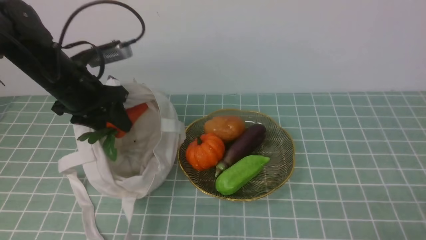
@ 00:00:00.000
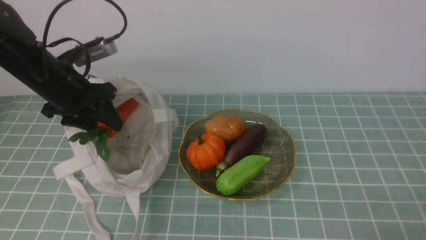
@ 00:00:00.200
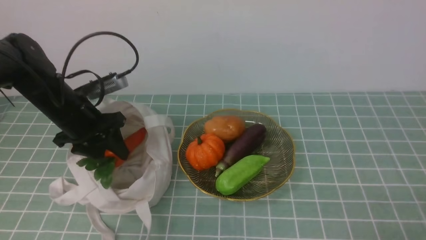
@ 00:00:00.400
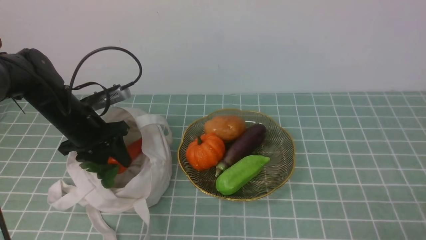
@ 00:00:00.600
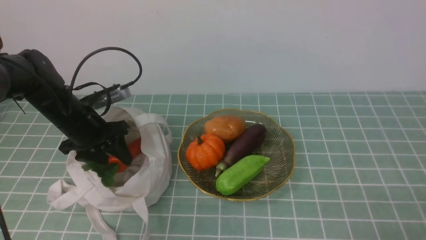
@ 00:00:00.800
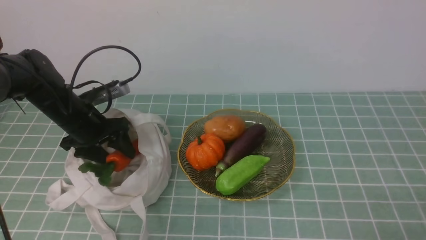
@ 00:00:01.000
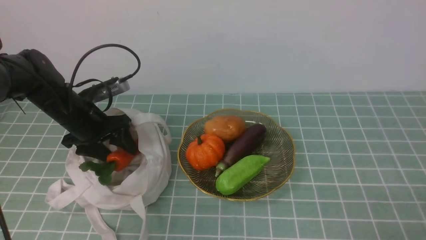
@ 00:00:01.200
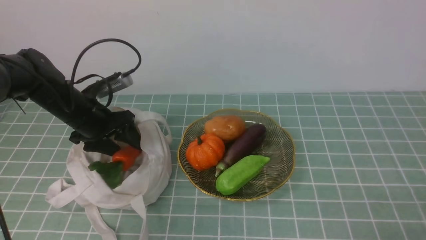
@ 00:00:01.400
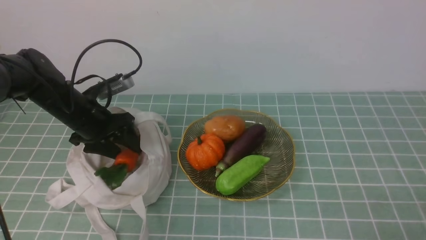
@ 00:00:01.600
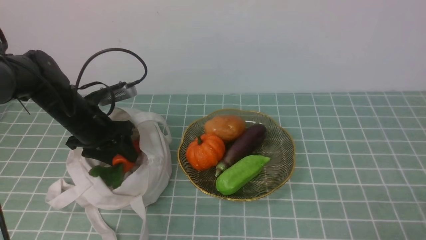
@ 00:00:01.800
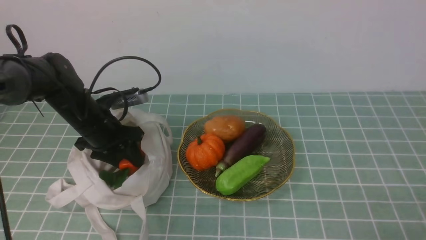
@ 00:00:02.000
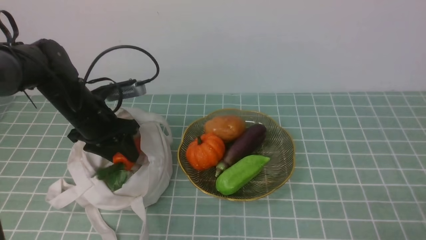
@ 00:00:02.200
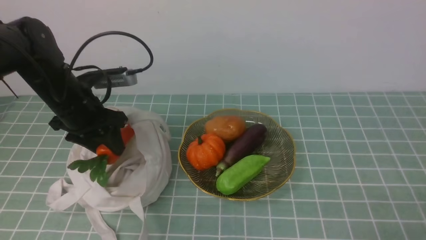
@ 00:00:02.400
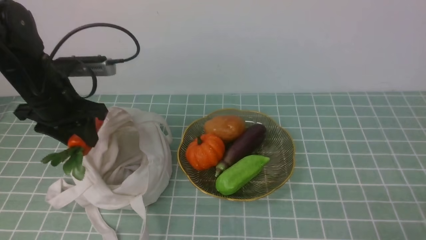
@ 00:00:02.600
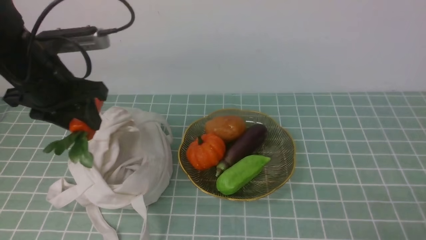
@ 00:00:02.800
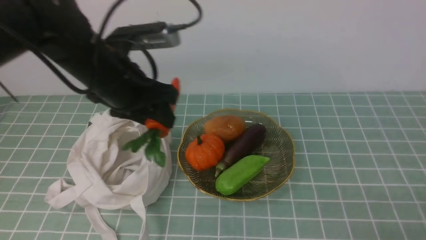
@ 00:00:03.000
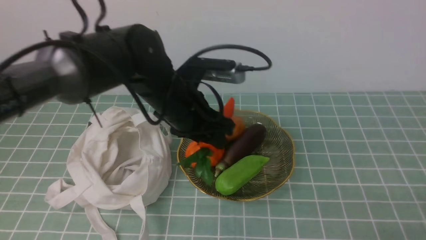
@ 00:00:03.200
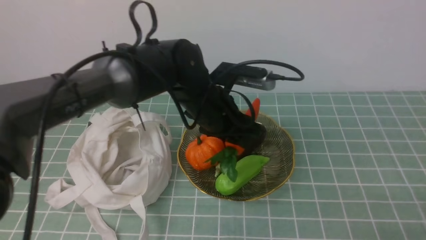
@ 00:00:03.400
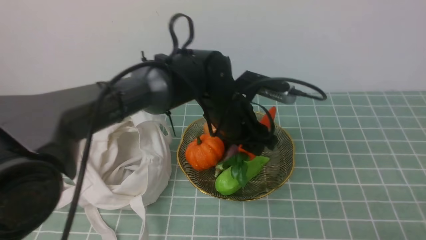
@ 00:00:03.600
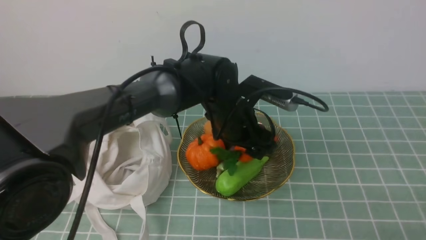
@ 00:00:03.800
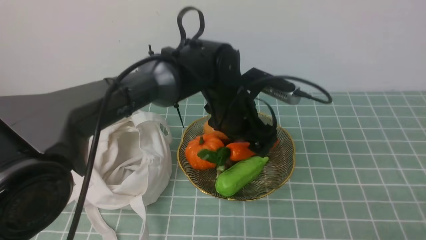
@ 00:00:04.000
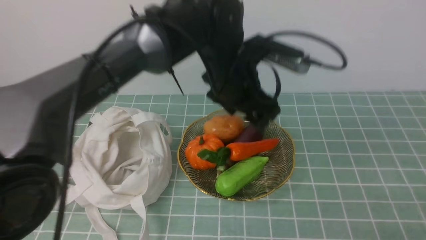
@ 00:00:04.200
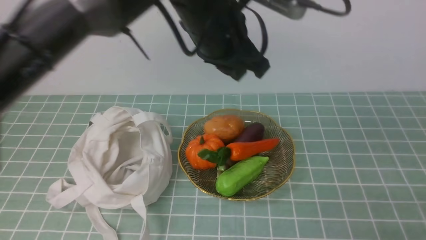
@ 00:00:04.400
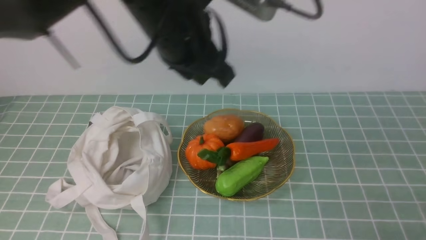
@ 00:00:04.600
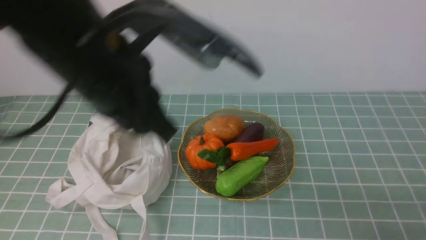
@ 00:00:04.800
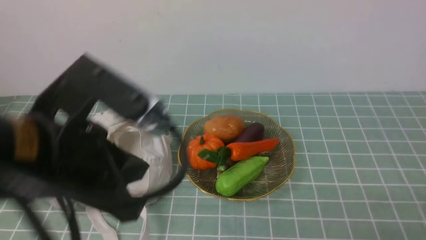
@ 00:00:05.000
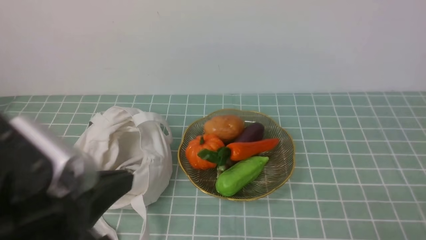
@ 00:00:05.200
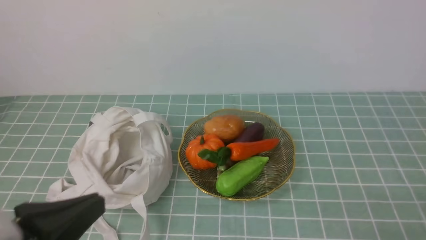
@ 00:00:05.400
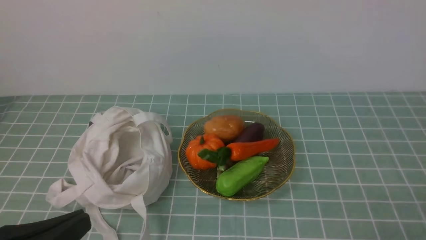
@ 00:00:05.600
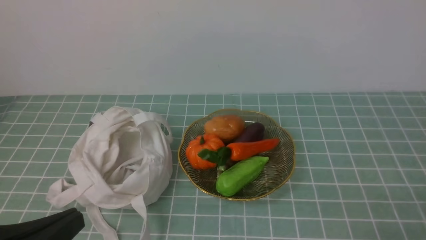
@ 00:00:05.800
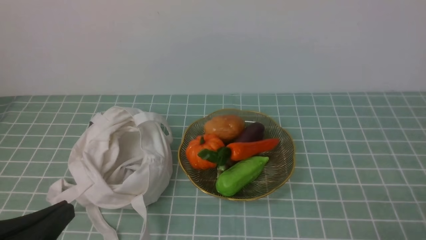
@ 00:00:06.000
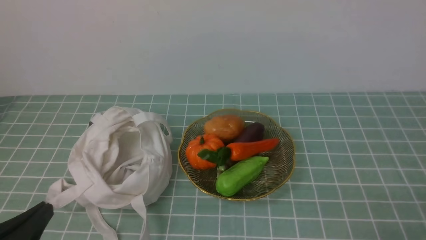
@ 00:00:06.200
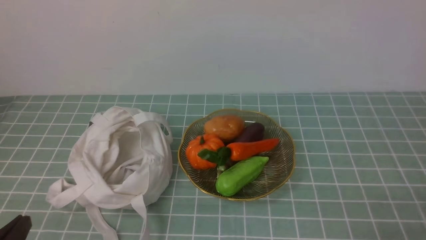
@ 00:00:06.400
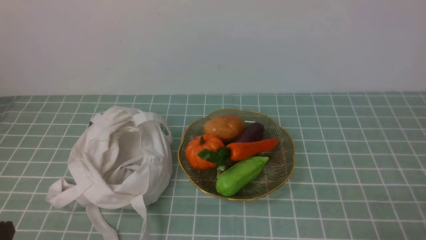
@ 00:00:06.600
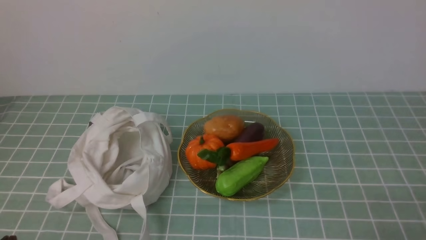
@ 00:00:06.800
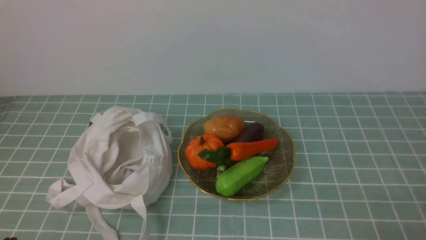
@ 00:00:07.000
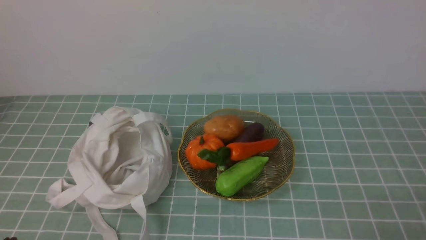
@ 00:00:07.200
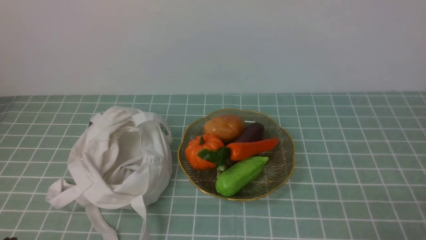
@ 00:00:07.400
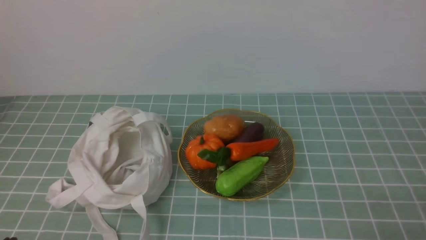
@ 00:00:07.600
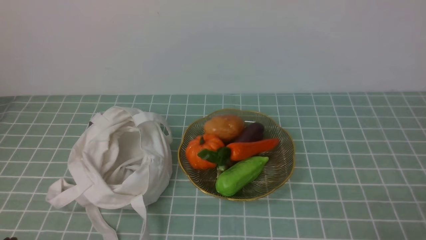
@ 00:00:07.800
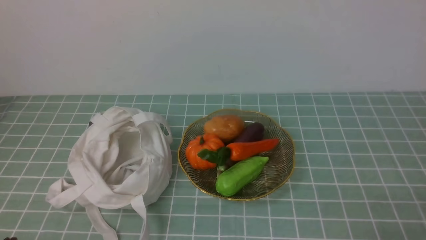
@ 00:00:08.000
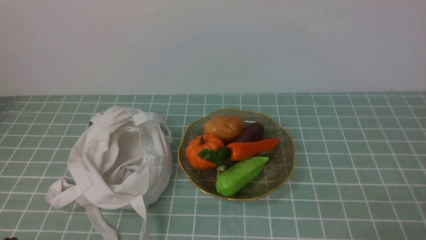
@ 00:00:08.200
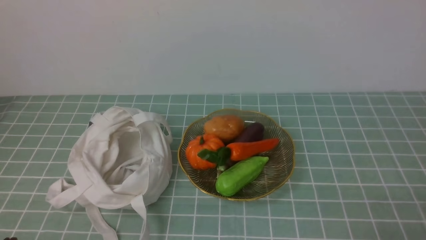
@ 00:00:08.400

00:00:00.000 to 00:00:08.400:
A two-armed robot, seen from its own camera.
Task of the whole recording: take vegetables from cloth bag on blue coffee tablecloth place on plate.
Step, 00:00:00.000 to 00:00:03.800: Place the radish on the plate with left gripper.
00:00:00.000 to 00:00:01.400: The left gripper travels downward by some 5 cm, and opens up.
00:00:01.400 to 00:00:02.800: The left gripper moves upward and backward, about 15 cm.
00:00:02.800 to 00:00:04.200: The left gripper shifts about 25 cm to the right, and opens.
00:00:04.200 to 00:00:05.600: The left gripper heads backward and to the left, covering some 35 cm, and closes up.
00:00:05.600 to 00:00:07.000: The left gripper travels downward and to the left by some 10 cm.
00:00:07.000 to 00:00:08.400: Both grippers stay about where they are.

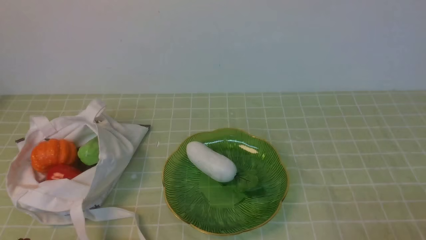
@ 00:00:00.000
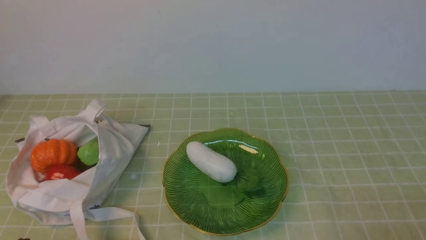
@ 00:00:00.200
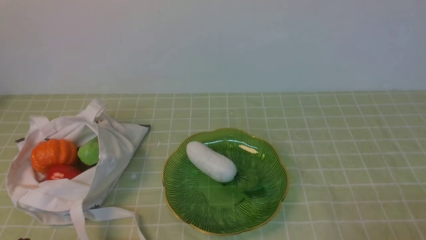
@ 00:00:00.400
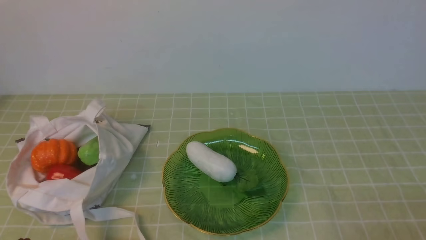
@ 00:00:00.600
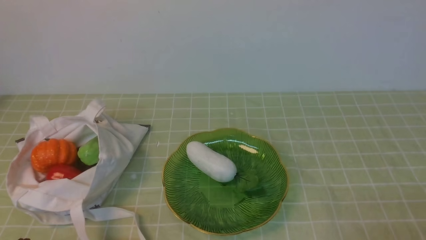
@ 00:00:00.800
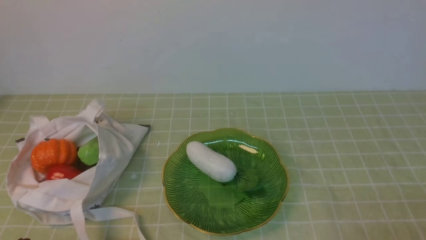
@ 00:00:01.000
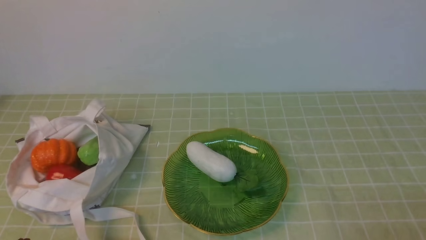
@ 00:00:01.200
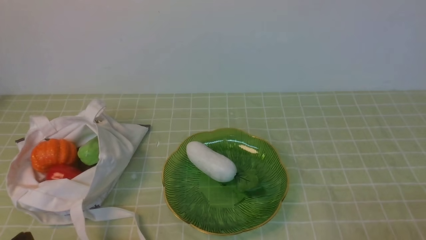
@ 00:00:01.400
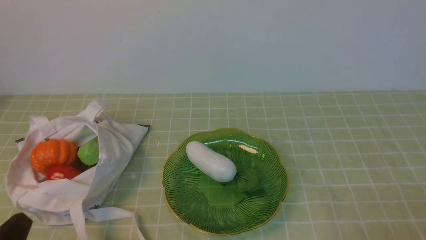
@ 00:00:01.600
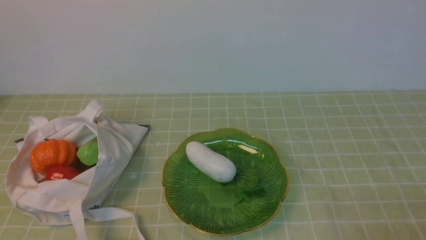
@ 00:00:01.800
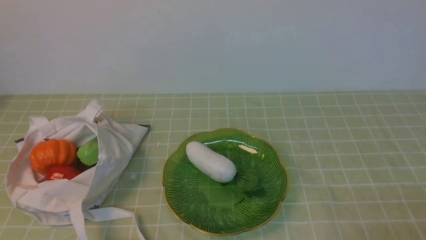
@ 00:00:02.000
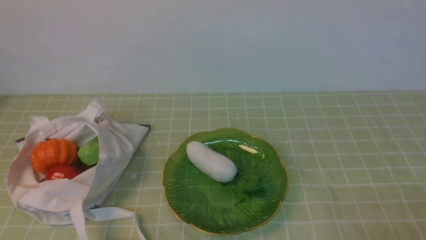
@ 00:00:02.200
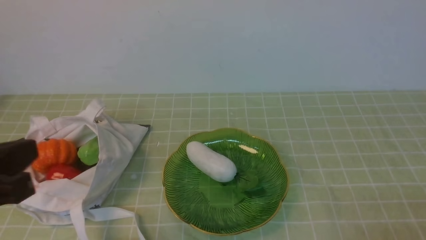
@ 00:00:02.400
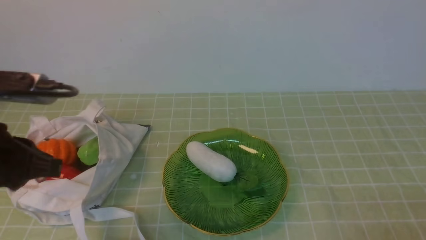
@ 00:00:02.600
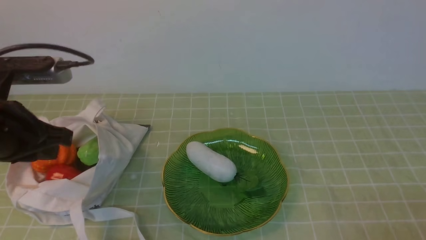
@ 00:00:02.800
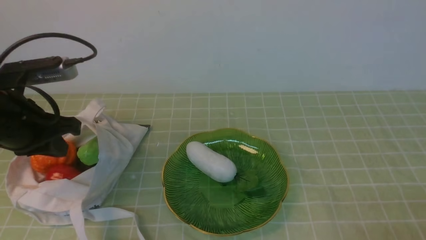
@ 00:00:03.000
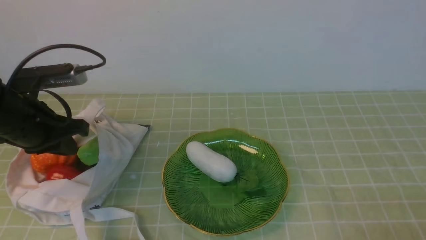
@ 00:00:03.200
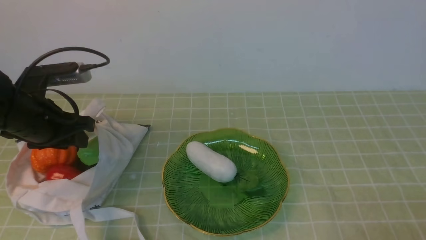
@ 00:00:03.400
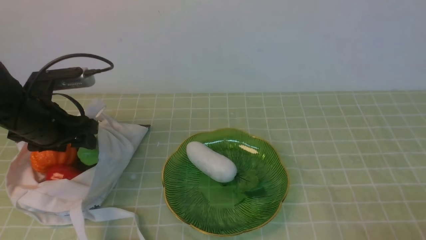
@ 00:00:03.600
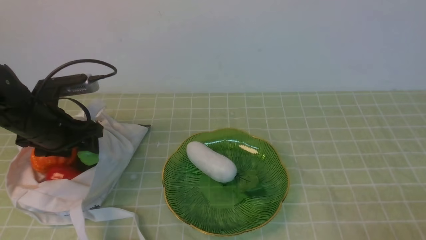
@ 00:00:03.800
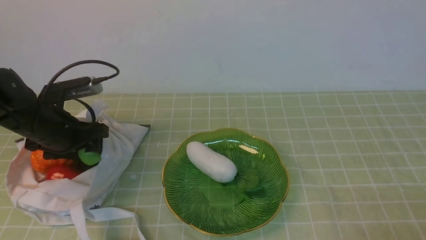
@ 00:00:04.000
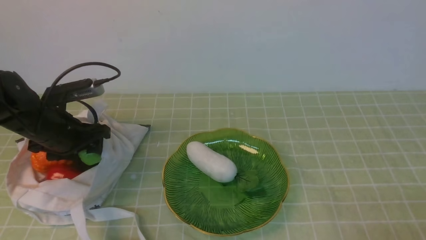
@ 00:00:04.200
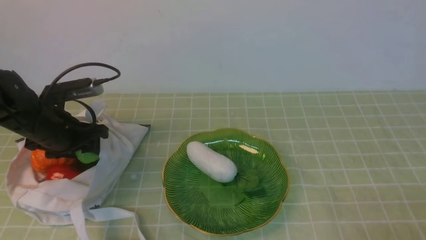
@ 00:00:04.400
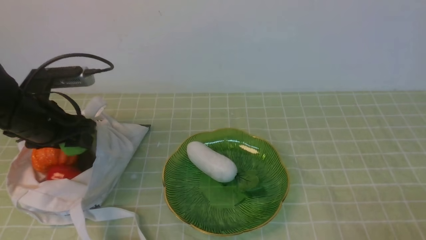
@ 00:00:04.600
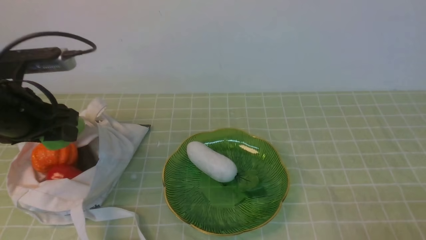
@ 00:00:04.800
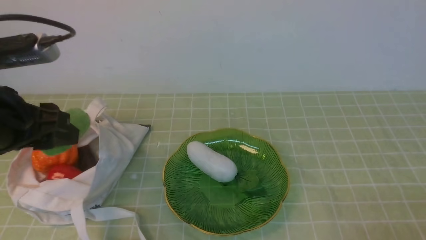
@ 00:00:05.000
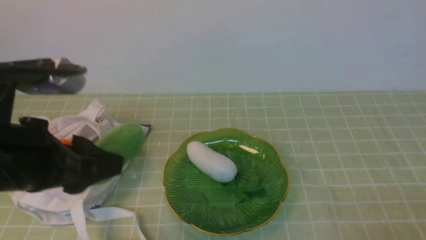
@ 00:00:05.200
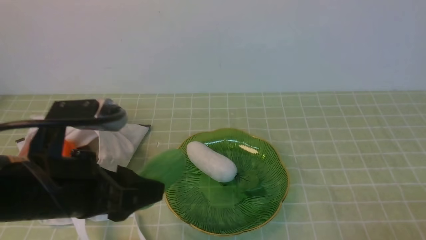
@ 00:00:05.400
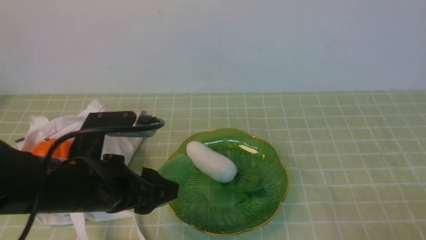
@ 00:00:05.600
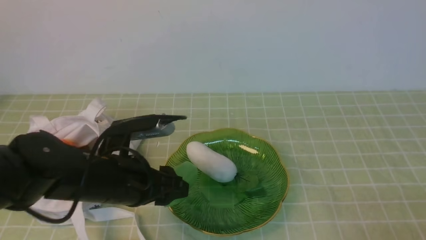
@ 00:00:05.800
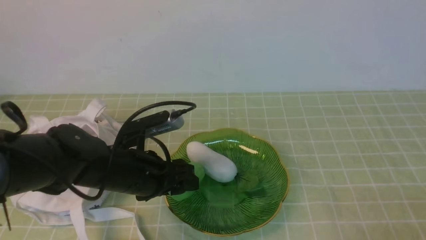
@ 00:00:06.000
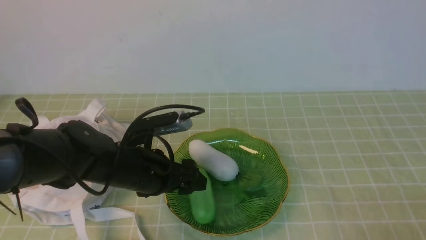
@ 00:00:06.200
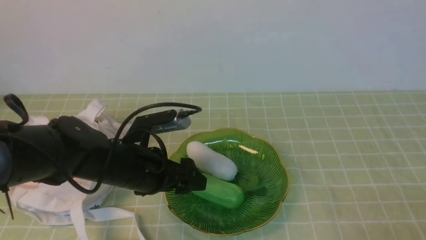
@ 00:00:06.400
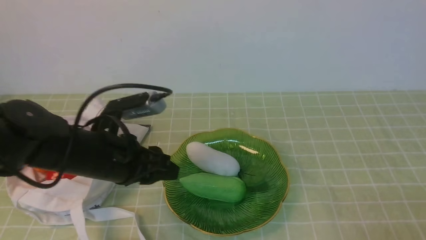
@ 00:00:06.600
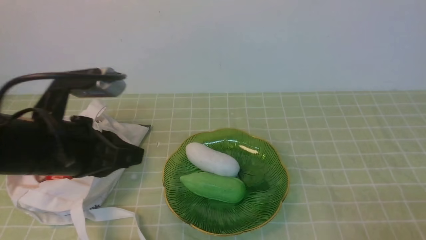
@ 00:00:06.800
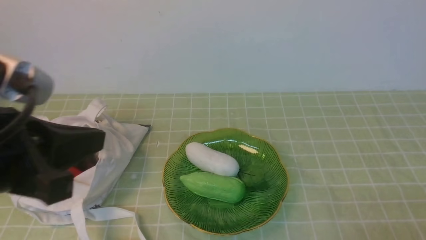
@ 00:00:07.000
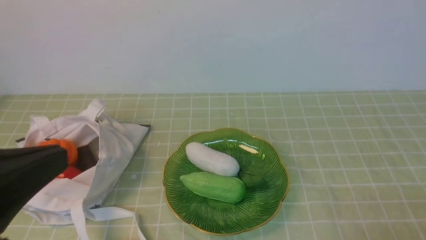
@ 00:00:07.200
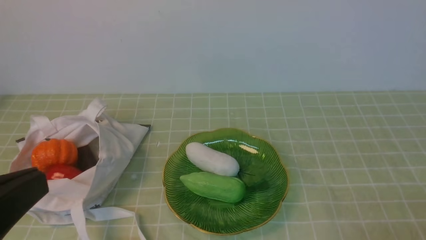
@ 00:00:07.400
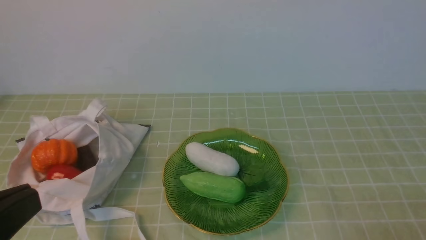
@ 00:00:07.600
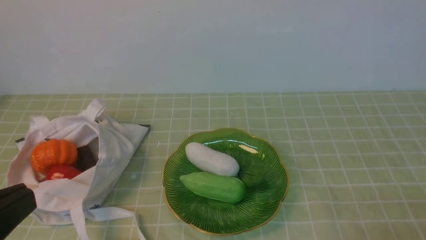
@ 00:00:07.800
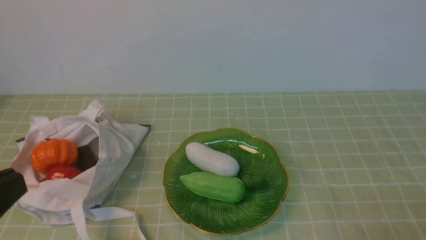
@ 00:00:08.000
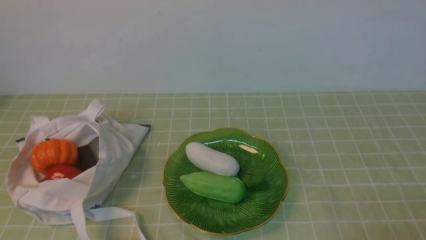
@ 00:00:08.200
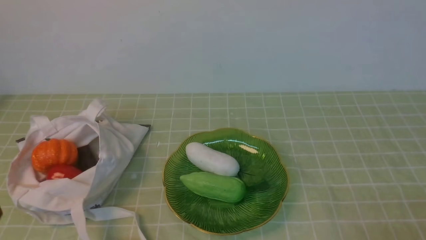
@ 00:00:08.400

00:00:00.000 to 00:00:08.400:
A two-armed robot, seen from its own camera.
Task of the whole recording: take vegetables from bag on green coffee tablecloth place on plate.
Step, 00:00:00.000 to 00:00:04.000: Grasp the bitter melon with left gripper.
Step, 00:00:04.200 to 00:00:06.400: Place the bitter melon on the plate with left gripper.
00:00:01.400 to 00:00:02.800: The left gripper shifts some 20 cm forward and upward.
00:00:02.800 to 00:00:04.200: The left gripper heads forward and downward, covering about 20 cm, and opens its fingers.
00:00:04.200 to 00:00:05.600: The left gripper goes some 20 cm backward, to the right and upward.
00:00:05.600 to 00:00:07.000: The left gripper moves upward, about 5 cm, and closes.
00:00:07.000 to 00:00:08.400: The left gripper goes roughly 15 cm backward.
